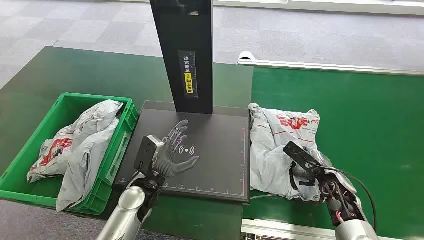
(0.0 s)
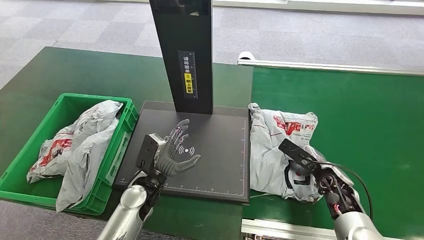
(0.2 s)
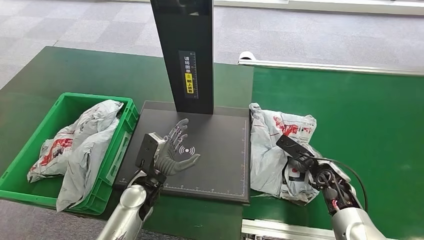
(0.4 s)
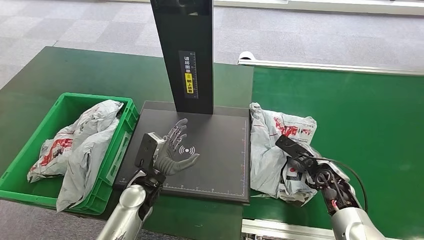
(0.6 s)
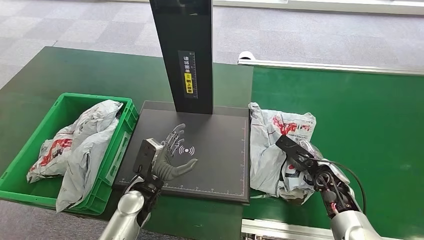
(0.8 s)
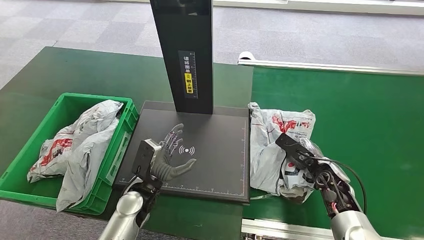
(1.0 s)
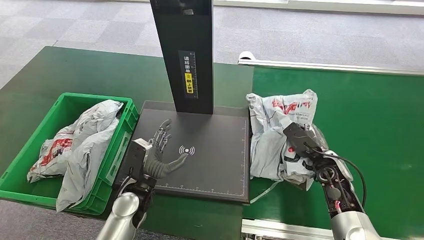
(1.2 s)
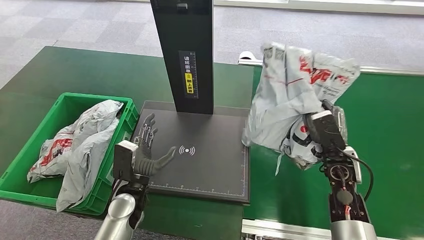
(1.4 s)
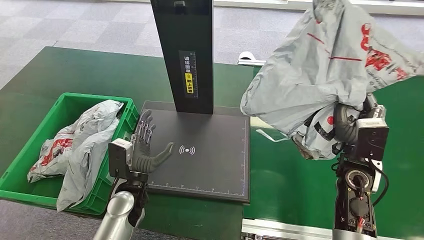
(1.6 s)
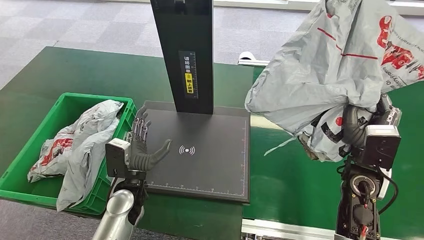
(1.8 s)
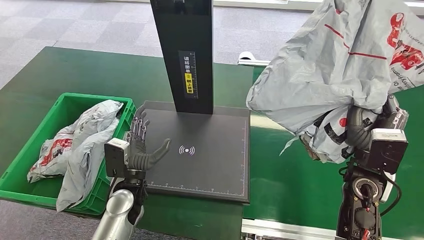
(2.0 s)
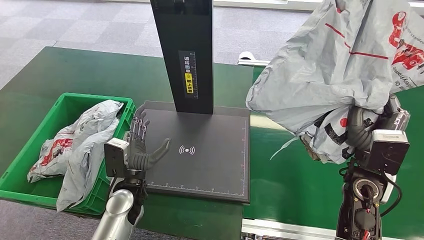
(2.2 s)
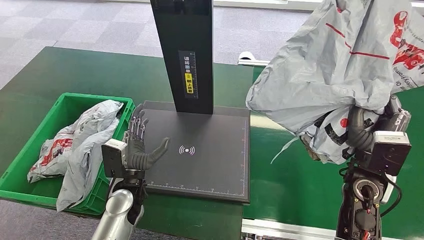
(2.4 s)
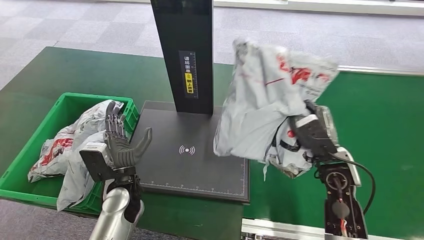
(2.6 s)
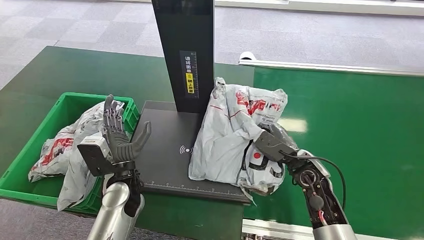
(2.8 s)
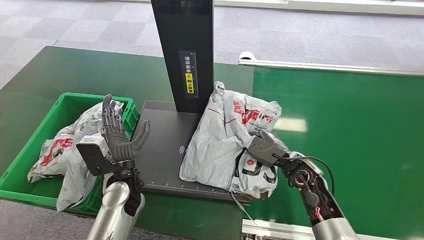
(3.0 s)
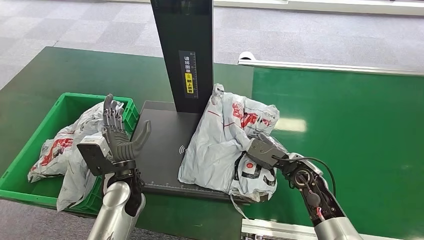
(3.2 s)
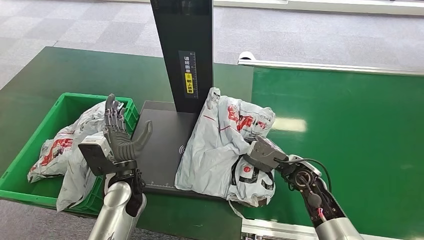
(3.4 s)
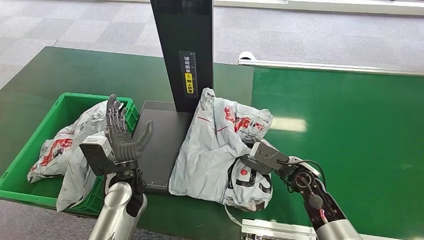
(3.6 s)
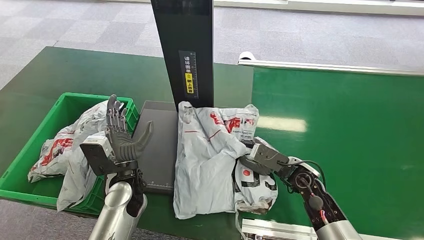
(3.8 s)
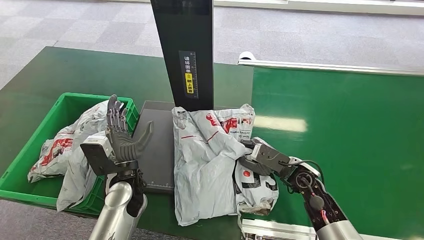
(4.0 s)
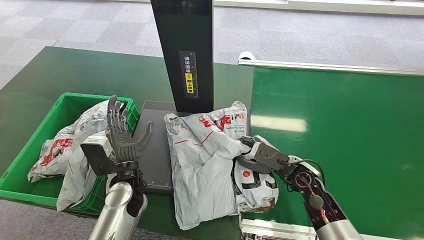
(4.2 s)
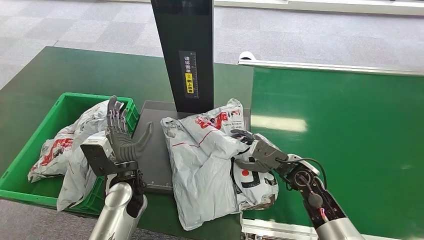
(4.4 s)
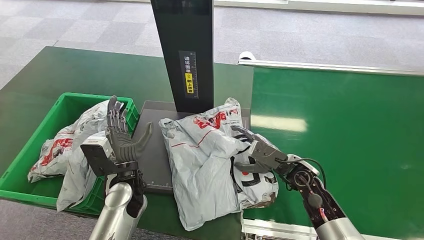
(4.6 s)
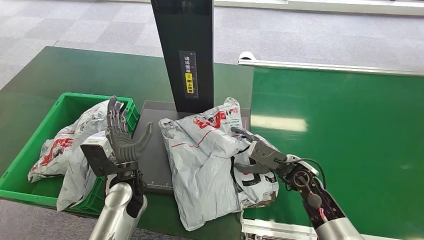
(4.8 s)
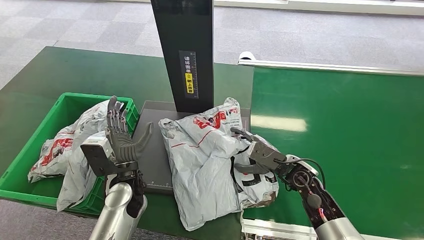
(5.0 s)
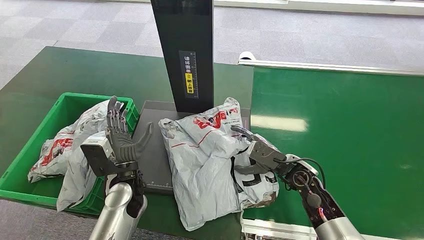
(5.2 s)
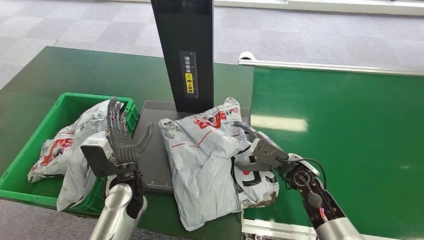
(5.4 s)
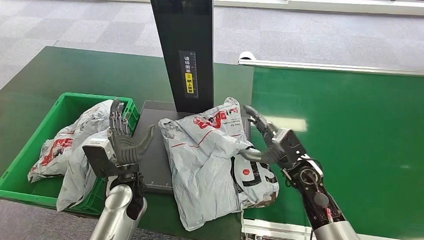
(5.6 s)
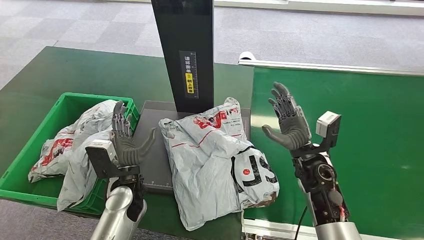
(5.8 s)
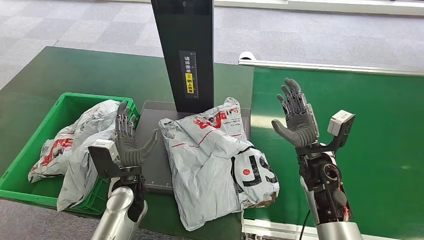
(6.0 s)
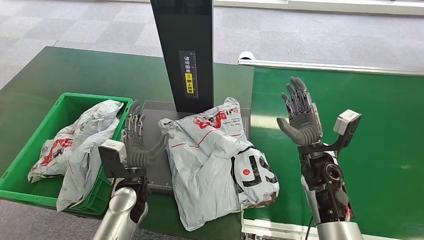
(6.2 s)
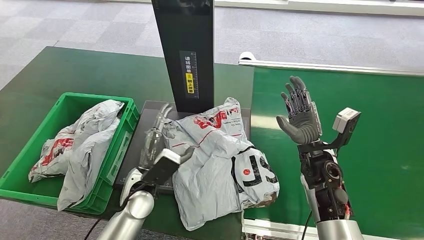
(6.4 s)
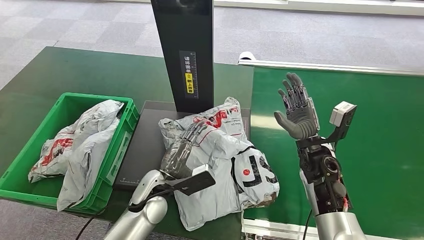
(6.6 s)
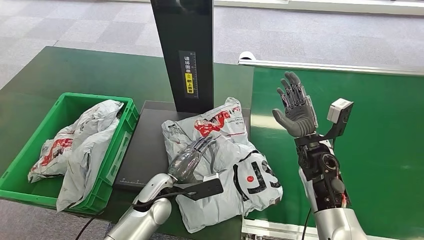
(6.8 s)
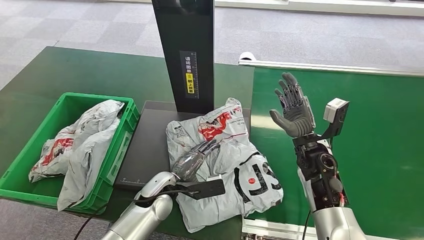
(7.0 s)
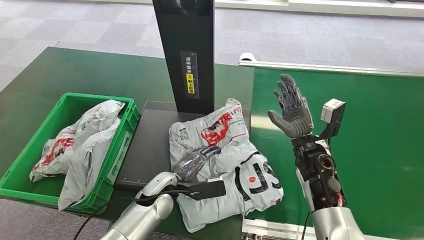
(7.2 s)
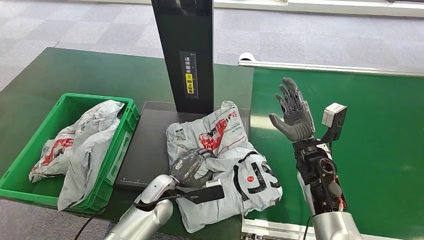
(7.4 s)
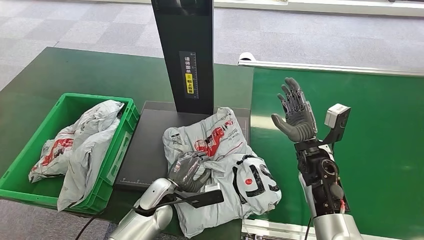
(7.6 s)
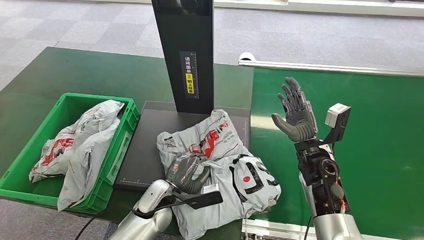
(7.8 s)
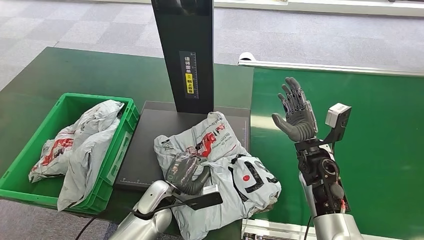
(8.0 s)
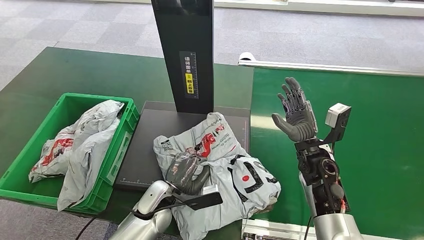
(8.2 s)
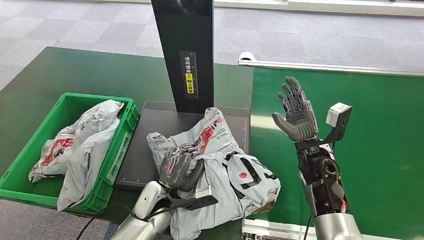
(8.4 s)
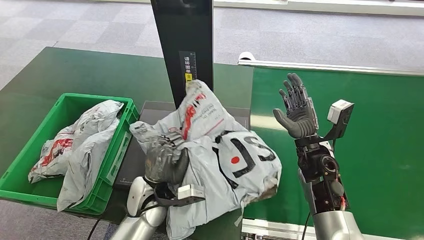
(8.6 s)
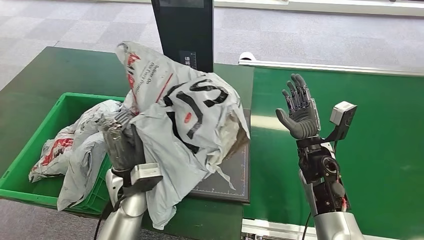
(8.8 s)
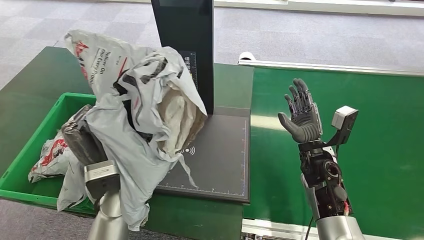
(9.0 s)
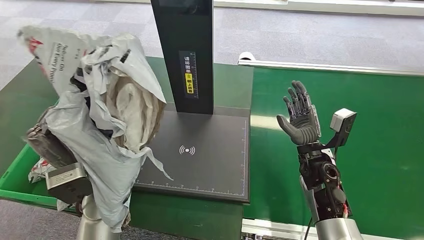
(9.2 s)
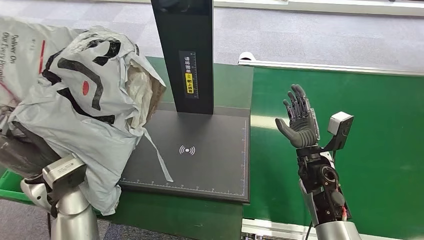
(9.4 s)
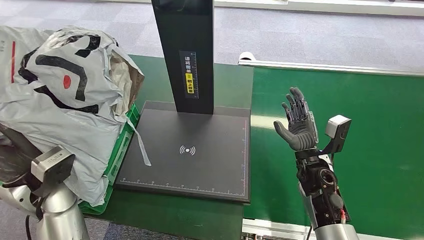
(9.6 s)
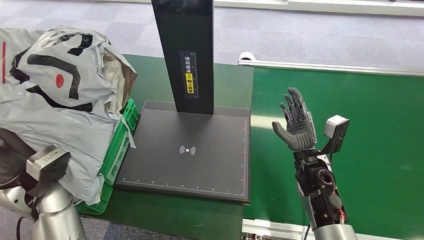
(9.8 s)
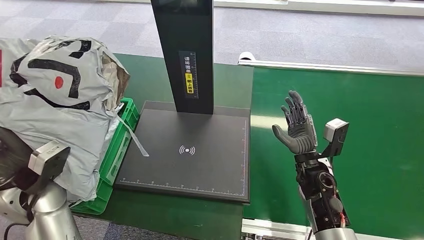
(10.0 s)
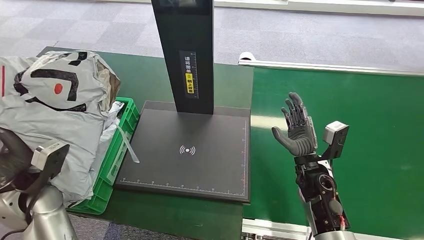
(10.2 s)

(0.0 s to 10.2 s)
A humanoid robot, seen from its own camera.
Step, 0.0 s - 1.8 s: Pick up the package from the conveyor belt.
Step, 2.0 s - 5.0 s: Place the package onto the inbound machine.
Step, 5.2 s - 8.8 s: Pick up the package from the inbound machine.
3.0 s - 4.4 s: There are only small adjustments of the hands.

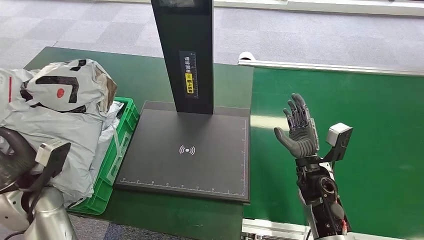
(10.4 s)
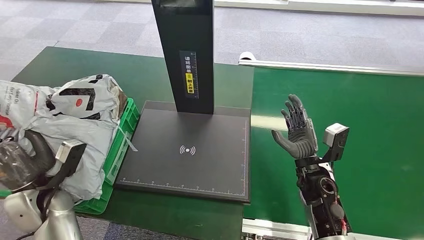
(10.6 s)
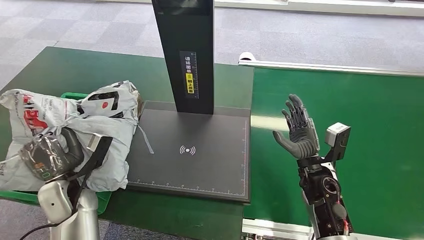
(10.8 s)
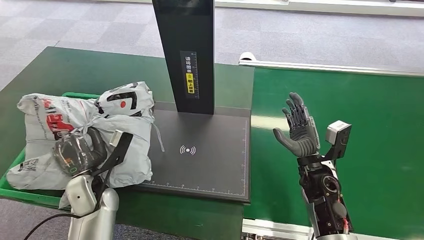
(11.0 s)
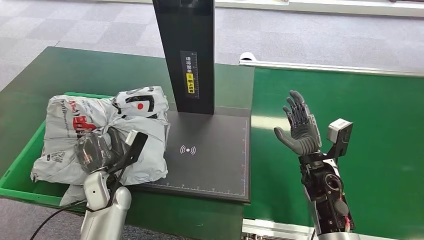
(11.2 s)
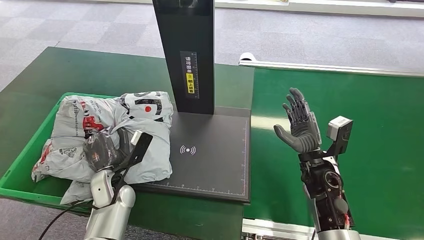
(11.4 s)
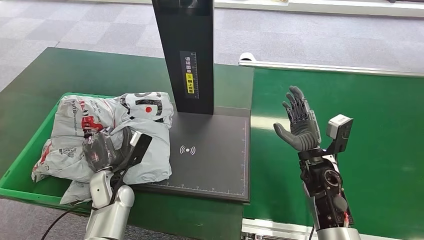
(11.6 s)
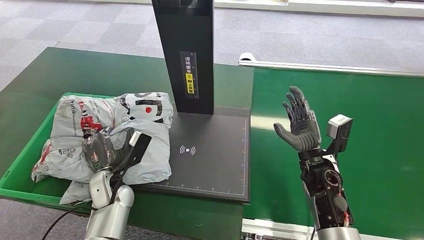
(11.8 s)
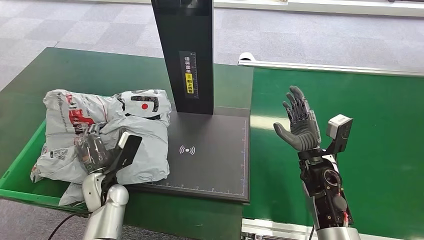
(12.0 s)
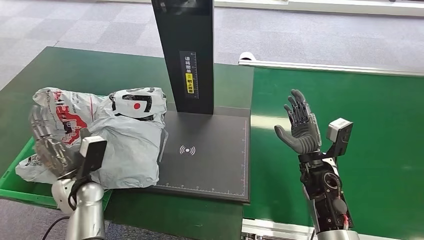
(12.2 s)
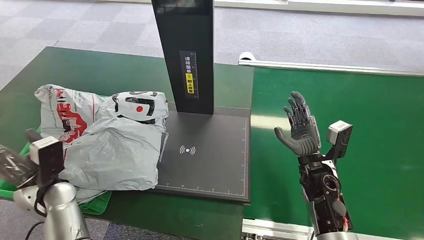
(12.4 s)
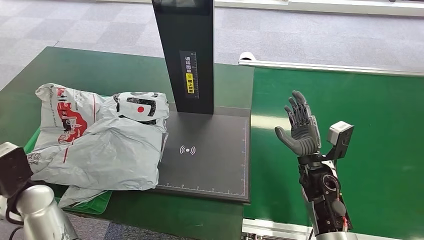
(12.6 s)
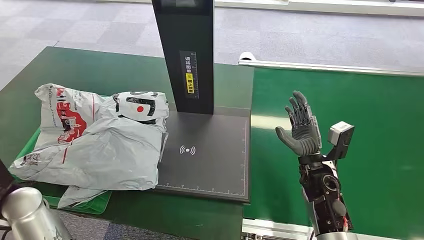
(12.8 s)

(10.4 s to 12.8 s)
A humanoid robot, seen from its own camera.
Step, 10.4 s - 12.6 s: Place the package into the parcel locker.
11.6 s - 12.8 s: The left hand heads to the left and upward, covering about 20 cm.
